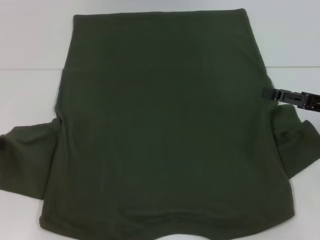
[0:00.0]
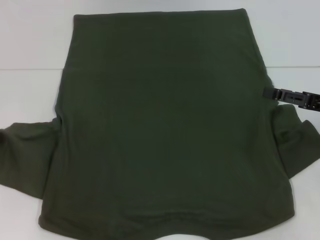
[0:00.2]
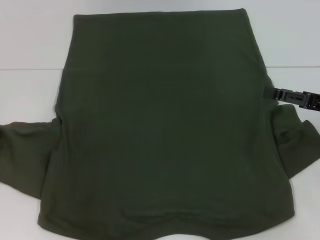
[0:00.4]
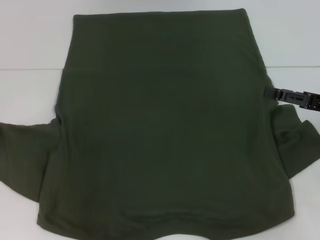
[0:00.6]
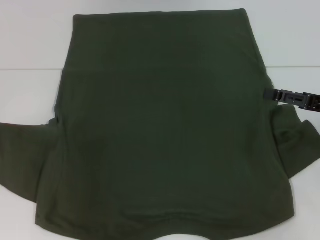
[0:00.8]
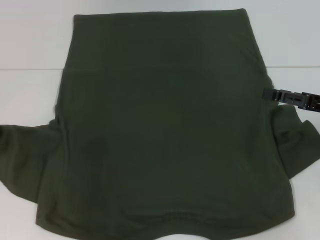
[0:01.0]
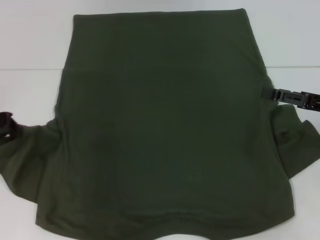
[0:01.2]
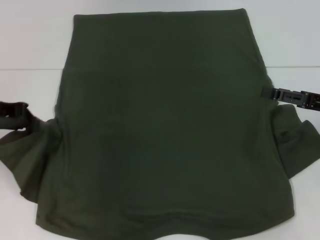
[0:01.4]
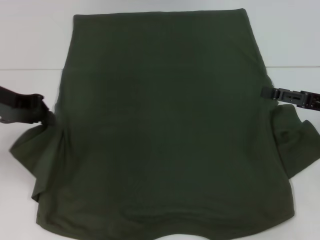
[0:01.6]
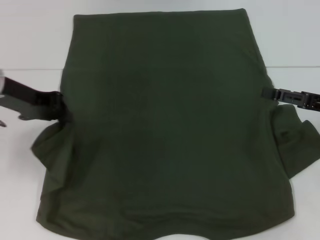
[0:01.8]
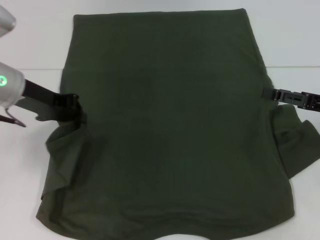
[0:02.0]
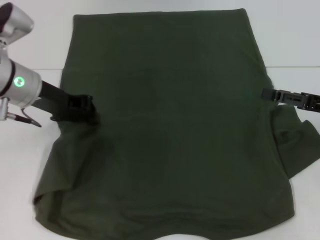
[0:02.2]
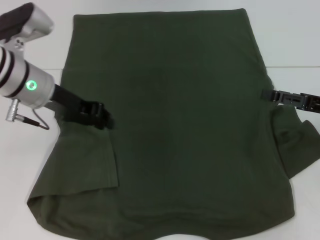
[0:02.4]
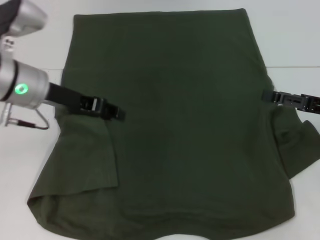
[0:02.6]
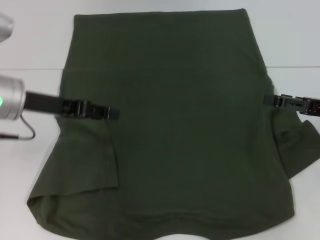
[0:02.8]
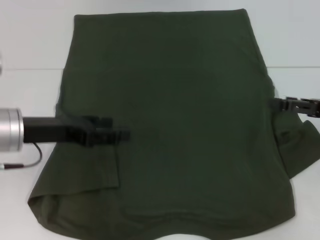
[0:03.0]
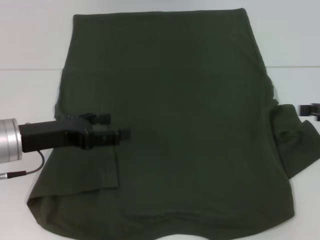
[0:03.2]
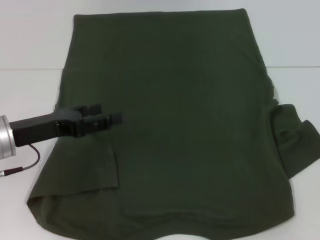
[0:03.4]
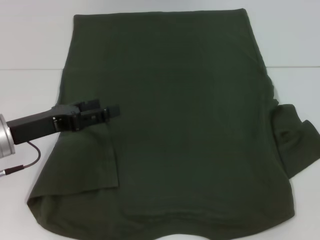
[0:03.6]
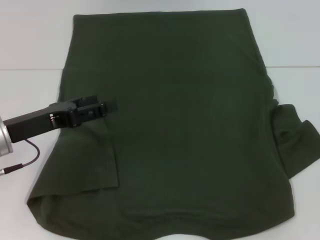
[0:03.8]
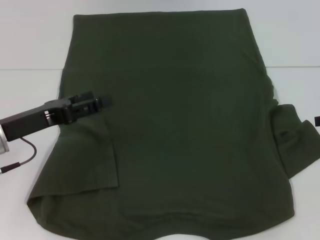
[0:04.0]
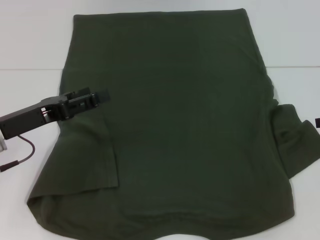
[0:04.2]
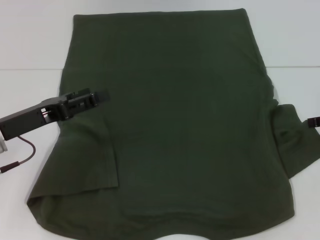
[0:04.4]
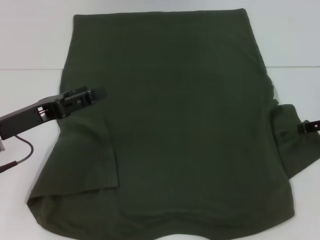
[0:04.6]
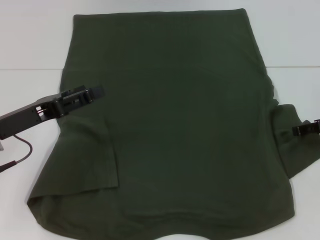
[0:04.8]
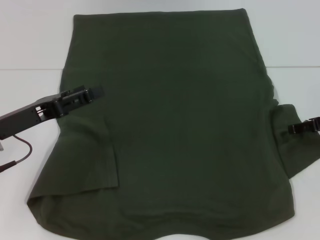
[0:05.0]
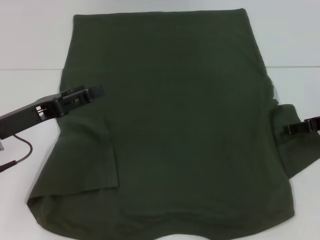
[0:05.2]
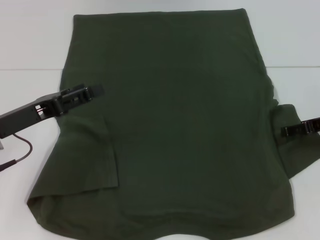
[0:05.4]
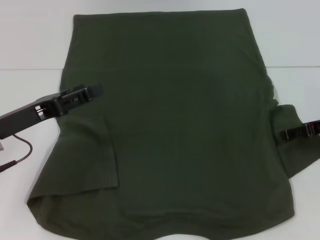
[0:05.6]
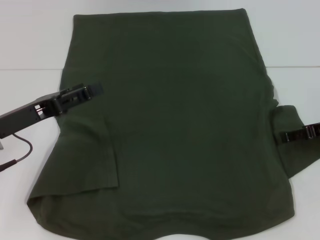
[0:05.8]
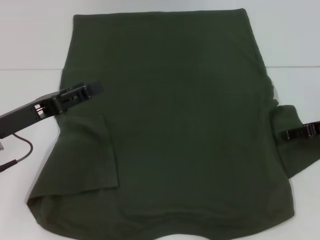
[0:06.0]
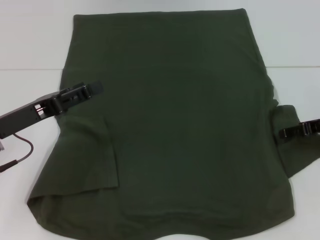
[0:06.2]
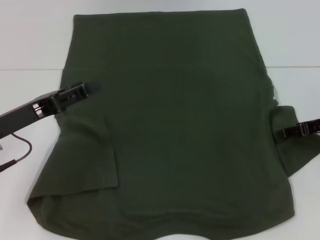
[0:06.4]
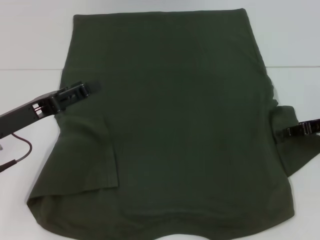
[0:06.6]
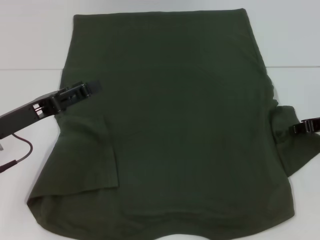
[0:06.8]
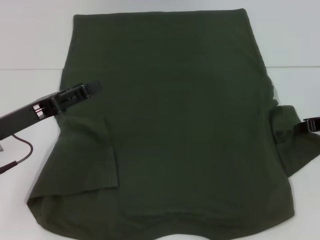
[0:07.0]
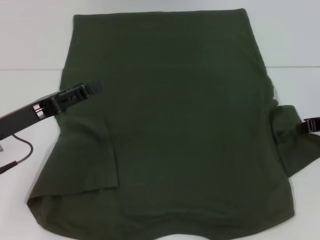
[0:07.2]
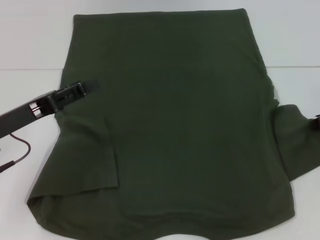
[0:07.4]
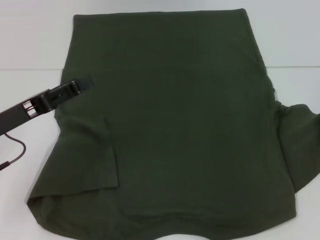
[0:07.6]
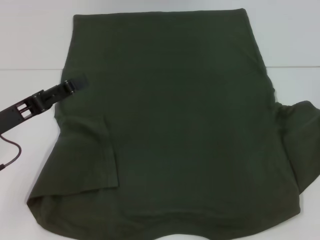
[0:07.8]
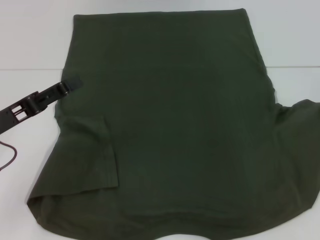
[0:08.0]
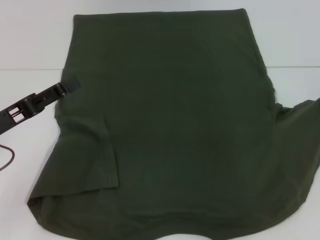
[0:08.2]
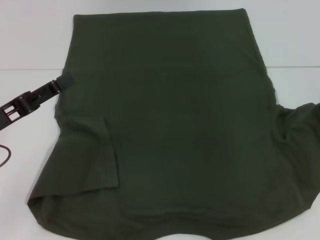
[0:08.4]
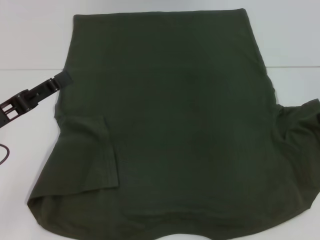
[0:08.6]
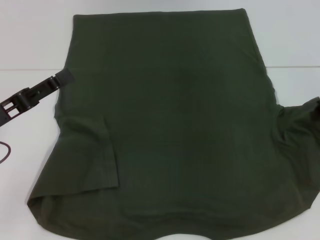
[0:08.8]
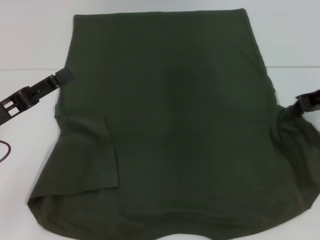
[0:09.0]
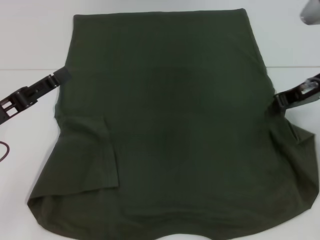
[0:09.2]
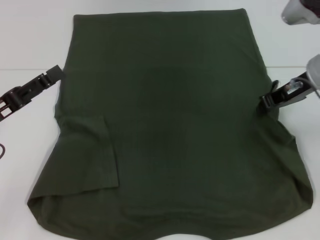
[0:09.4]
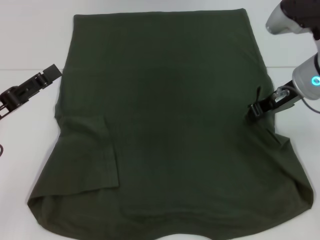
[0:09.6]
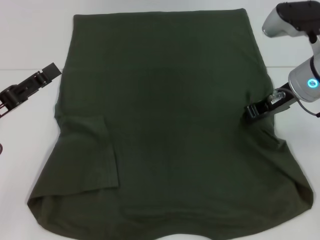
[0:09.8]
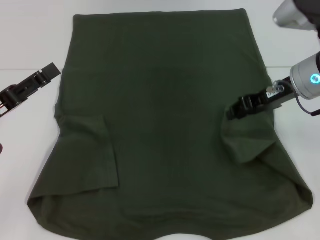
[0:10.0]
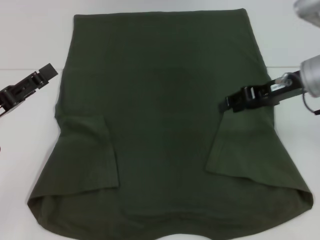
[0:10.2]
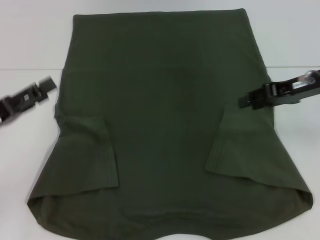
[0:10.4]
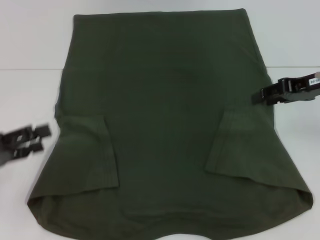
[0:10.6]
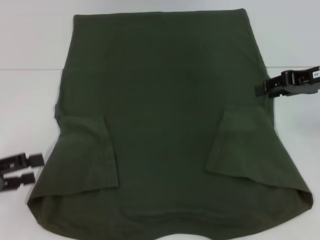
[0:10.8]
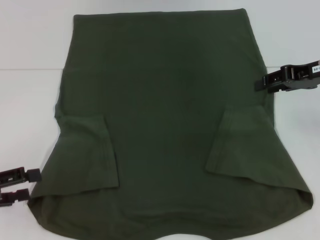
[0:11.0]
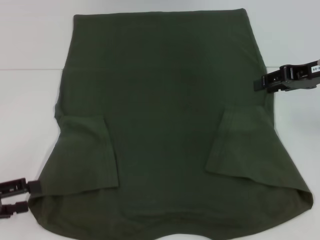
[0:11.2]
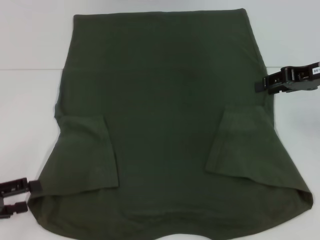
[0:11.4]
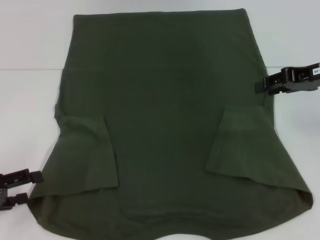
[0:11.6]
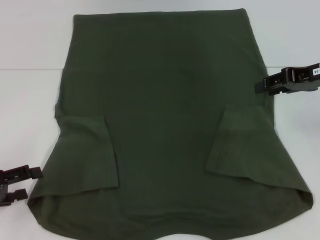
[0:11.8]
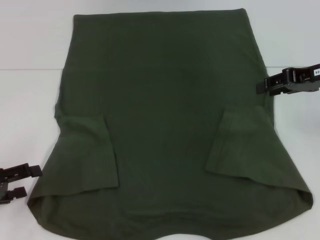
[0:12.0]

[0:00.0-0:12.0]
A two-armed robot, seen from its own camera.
Step, 0:00.0 to 0:02.6: Fold the bottom left sleeve with your left hand.
Step, 0:02.8 to 0:10.0: Fold the bottom right sleeve with your right hand.
0:00.0 to 0:01.6: The left gripper goes approximately 15 cm upward, to the right and forward.
0:01.6 to 0:03.0: The left gripper goes about 5 cm downward, and opens its fingers.
0:06.0 to 0:07.6: The right gripper closes its fingers.
0:07.6 to 0:09.0: The right gripper goes approximately 10 cm to the left and upward.
0:09.0 to 0:10.4: The right gripper moves some 10 cm to the left and comes back, and opens its fingers.
0:10.4 to 0:12.0: The left gripper ends up about 5 cm from where it was.

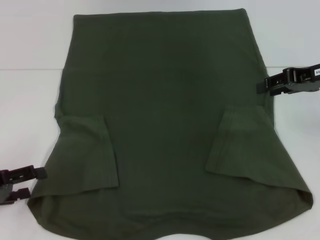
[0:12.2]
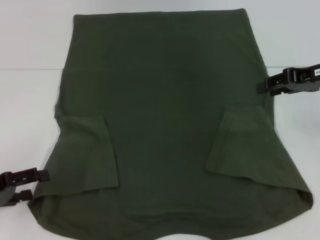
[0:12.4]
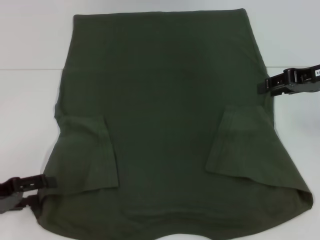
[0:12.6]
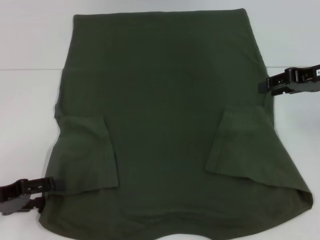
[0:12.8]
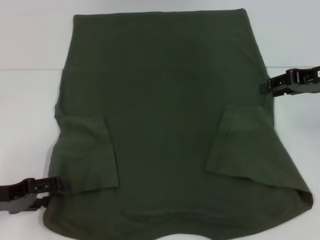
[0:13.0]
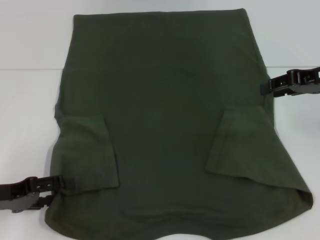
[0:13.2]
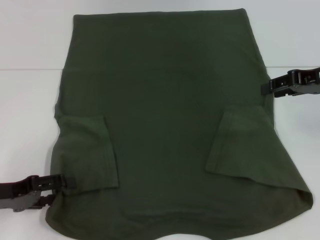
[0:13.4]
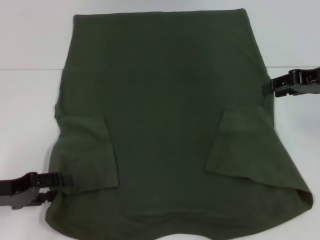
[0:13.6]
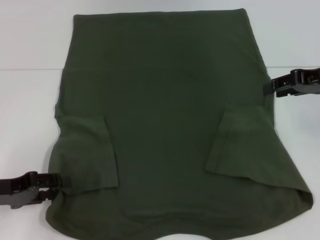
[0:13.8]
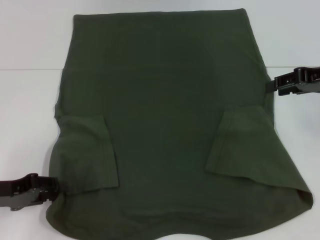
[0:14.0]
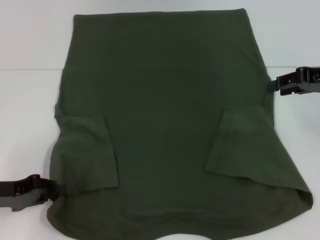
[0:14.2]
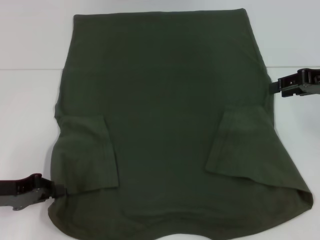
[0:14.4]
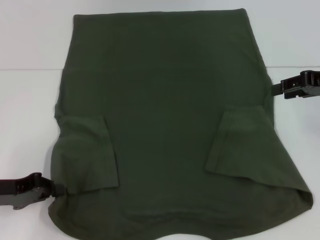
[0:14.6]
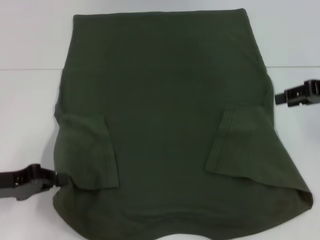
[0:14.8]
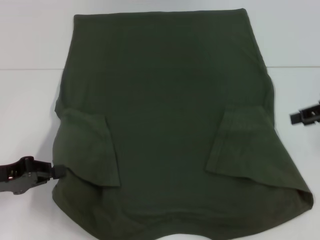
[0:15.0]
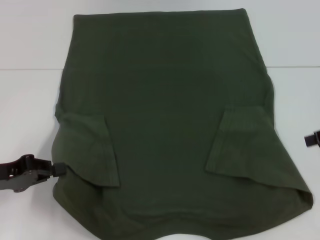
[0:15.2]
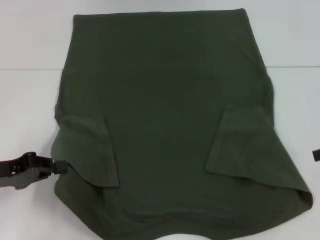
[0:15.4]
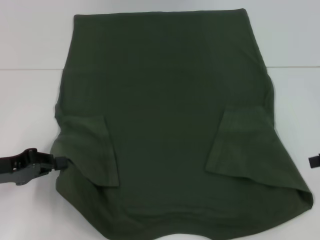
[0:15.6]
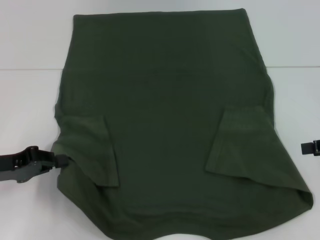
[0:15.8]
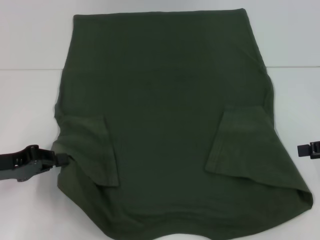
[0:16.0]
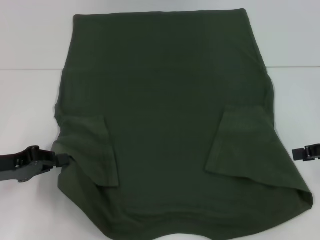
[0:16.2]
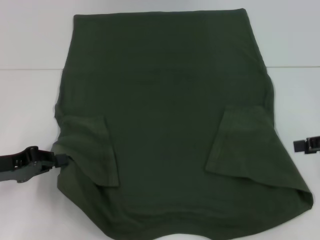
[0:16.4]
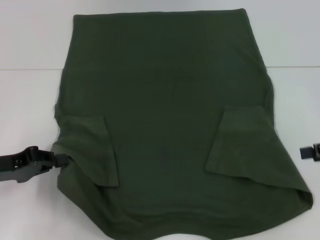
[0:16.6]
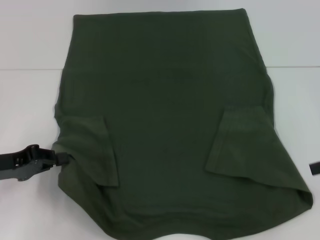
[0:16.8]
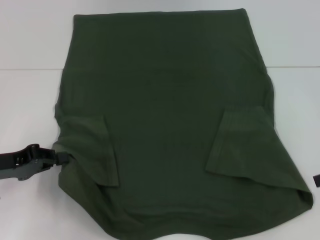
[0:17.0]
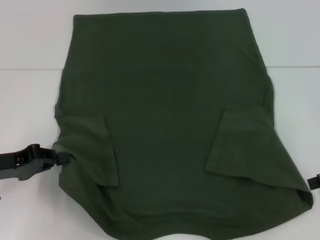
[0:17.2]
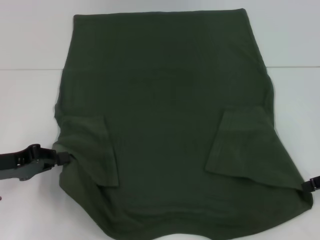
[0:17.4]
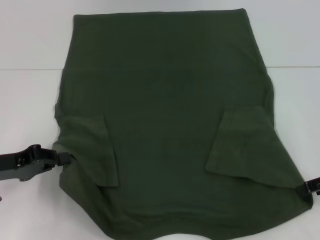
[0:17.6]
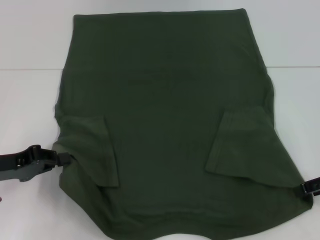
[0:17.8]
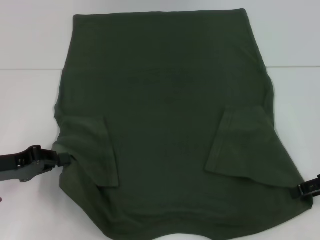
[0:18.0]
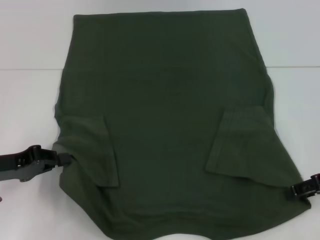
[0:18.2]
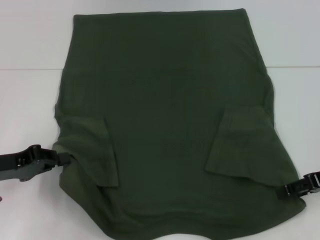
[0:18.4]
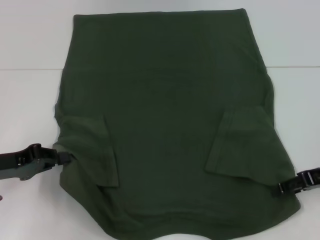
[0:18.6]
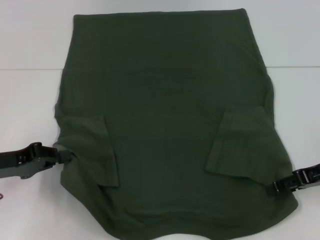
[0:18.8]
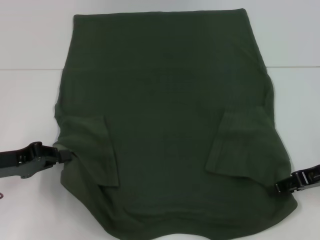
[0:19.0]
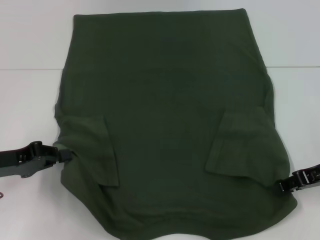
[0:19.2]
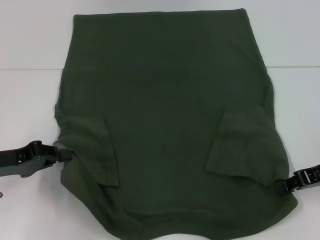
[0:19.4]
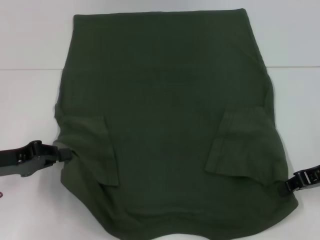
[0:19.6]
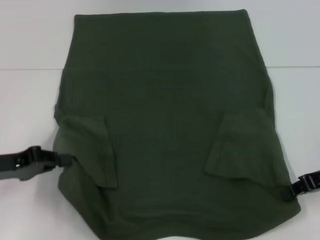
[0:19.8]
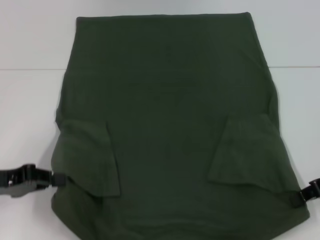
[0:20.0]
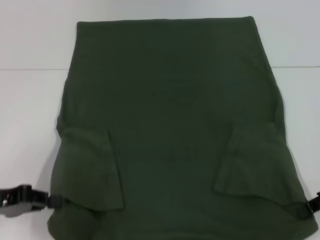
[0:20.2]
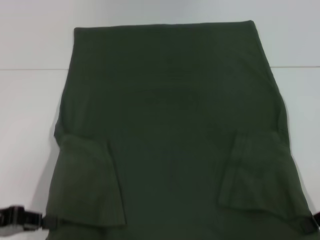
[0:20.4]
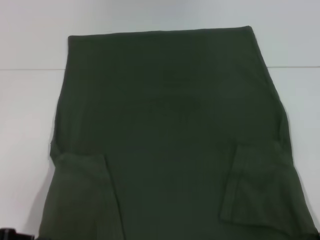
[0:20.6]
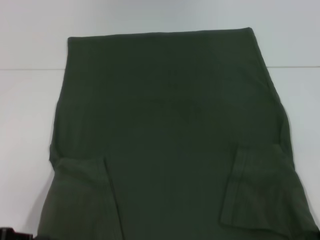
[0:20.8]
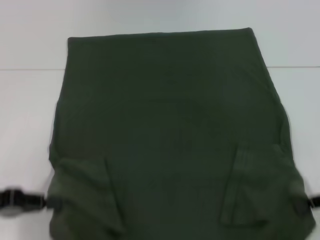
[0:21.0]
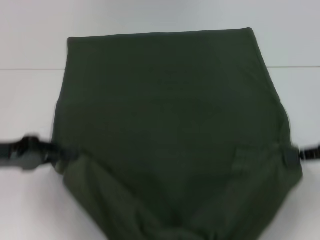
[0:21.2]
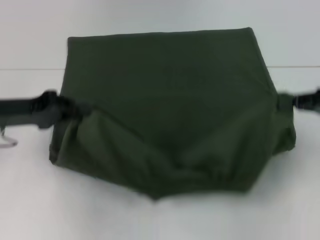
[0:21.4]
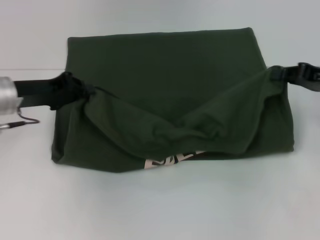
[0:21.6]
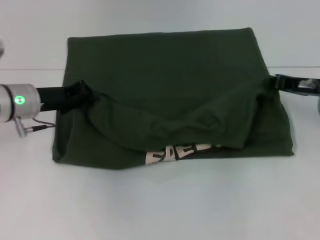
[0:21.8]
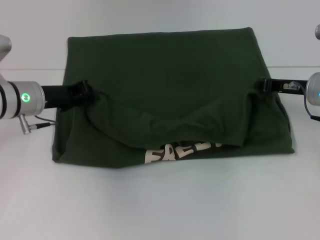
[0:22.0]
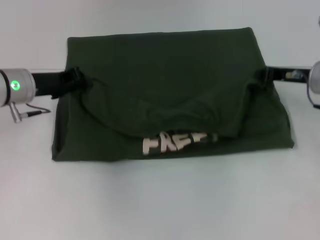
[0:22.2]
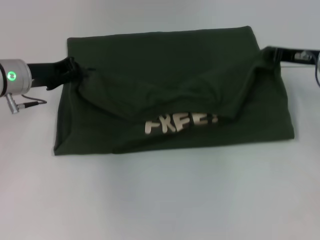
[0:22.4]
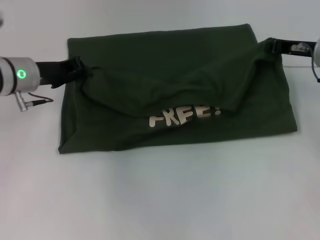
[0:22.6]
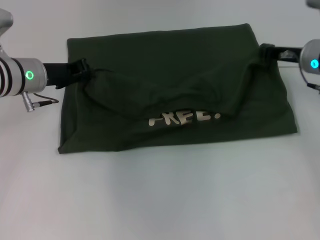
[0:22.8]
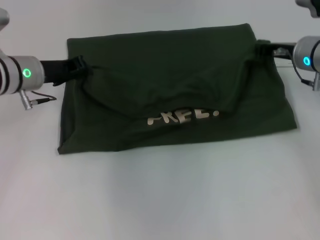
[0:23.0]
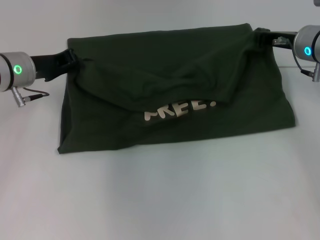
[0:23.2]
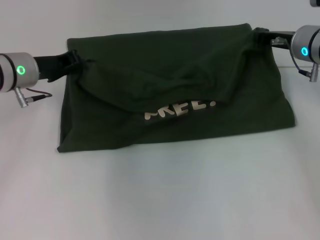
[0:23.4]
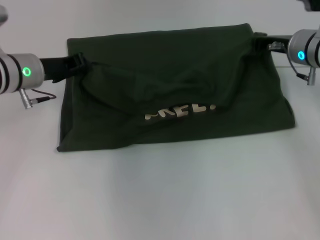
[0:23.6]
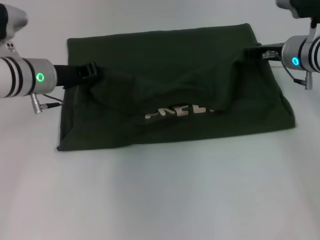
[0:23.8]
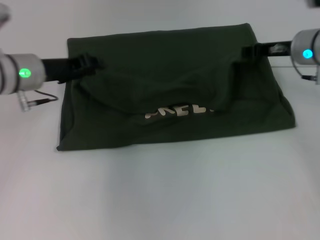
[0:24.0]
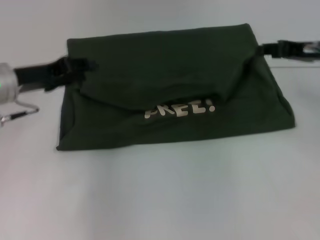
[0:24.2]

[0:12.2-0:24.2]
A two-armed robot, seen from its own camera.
Step, 0:12.2 to 0:14.2: Grab the bottom left corner with your left hand.
Step, 0:14.4 to 0:19.2: Grab the bottom right corner with your right hand.
Step, 0:19.4 to 0:24.0: Fold the clothes with your left hand.
Step, 0:19.4 to 0:24.0: Fold the clothes with your right hand.
0:12.2 to 0:13.8: The grippers make only small movements.
0:13.8 to 0:15.2: The left gripper closes. Meanwhile the right gripper is displaced to the right by about 5 cm.
0:15.2 to 0:16.6: The grippers move only a little.
0:16.6 to 0:18.2: The right gripper ends up some 5 cm from where it was.
0:18.2 to 0:19.8: The right gripper closes its fingers.
0:19.8 to 0:21.2: The right gripper moves roughly 5 cm. Meanwhile the left gripper moves approximately 10 cm backward and comes back.
0:21.2 to 0:22.6: The left gripper is displaced forward and to the right by some 15 cm, while the right gripper travels forward and to the left by roughly 15 cm.
0:22.6 to 0:24.2: The right gripper opens up. The left gripper ends up about 5 cm from where it was, and opens up.
